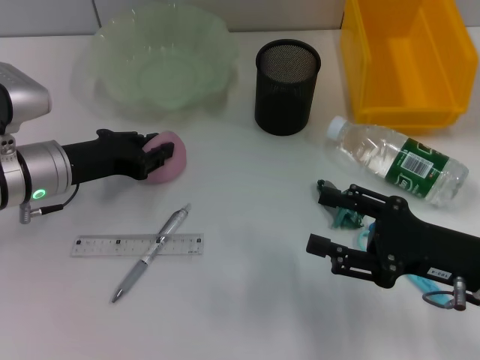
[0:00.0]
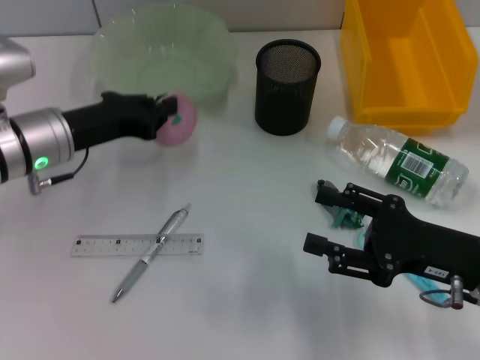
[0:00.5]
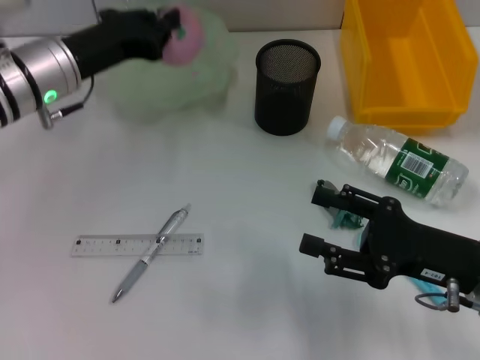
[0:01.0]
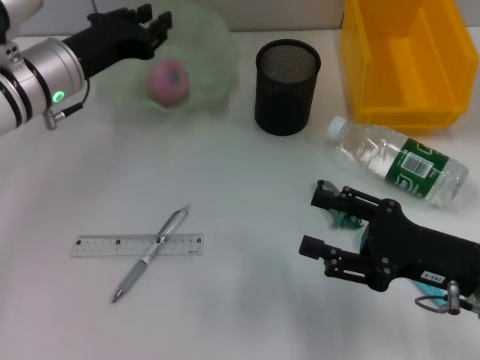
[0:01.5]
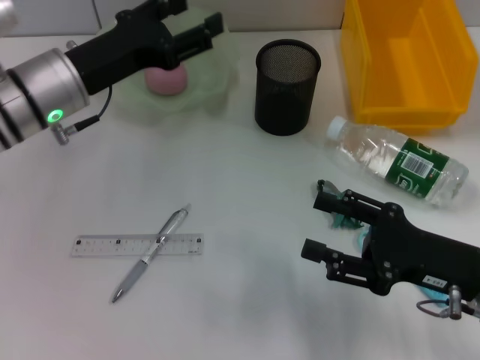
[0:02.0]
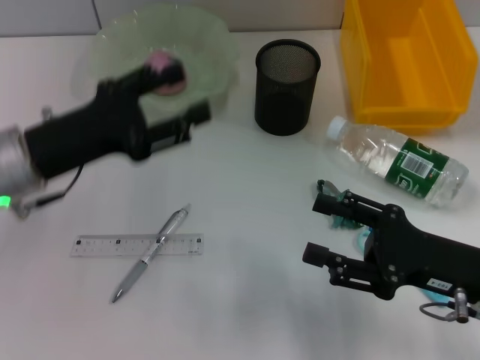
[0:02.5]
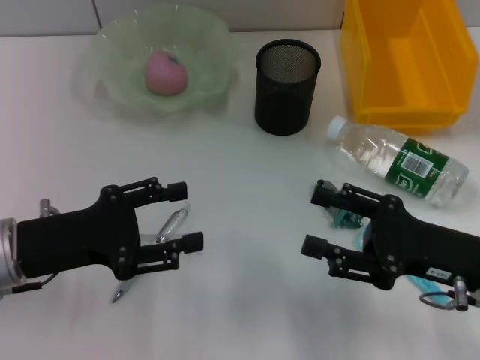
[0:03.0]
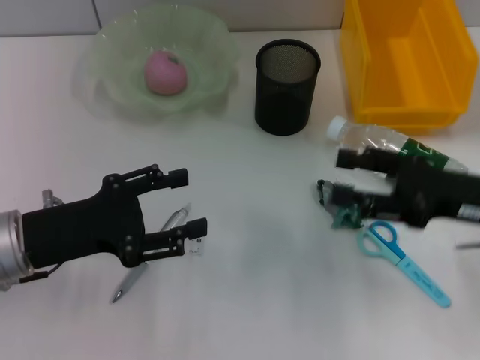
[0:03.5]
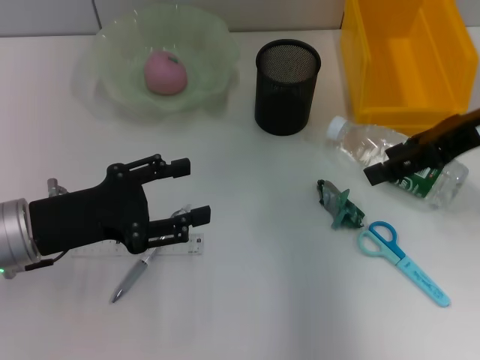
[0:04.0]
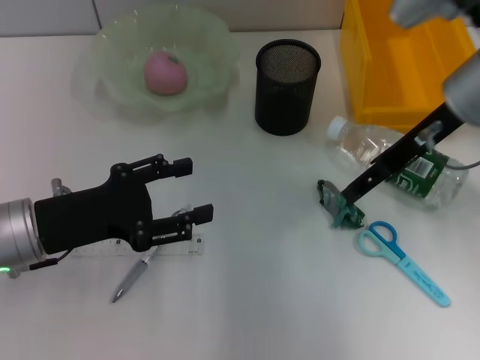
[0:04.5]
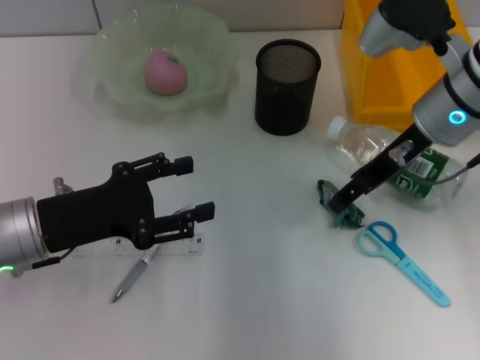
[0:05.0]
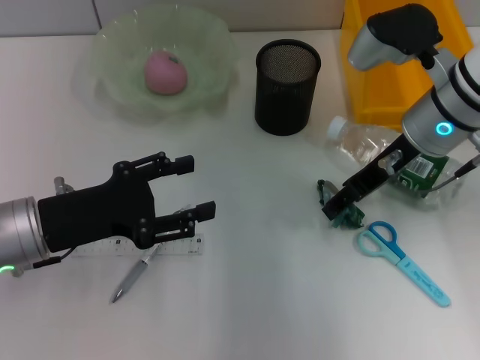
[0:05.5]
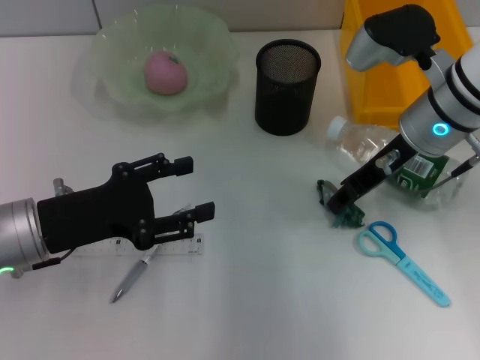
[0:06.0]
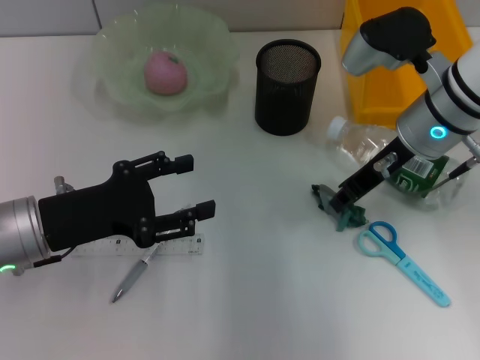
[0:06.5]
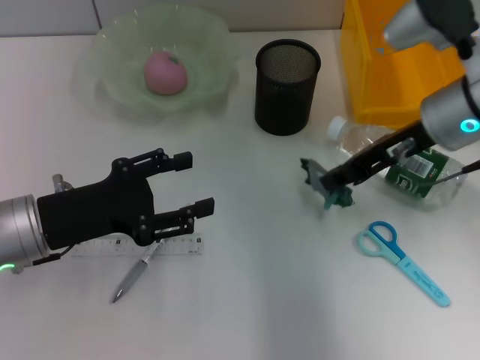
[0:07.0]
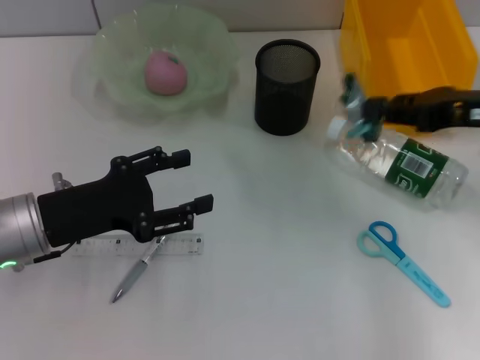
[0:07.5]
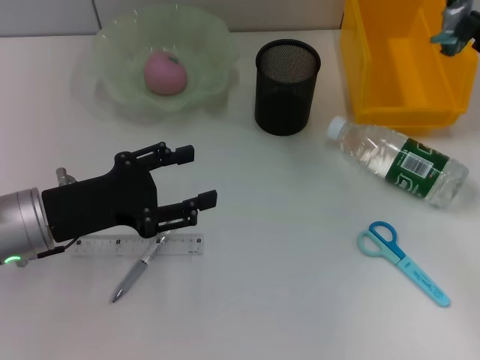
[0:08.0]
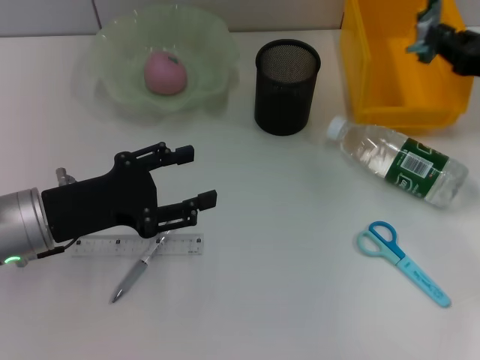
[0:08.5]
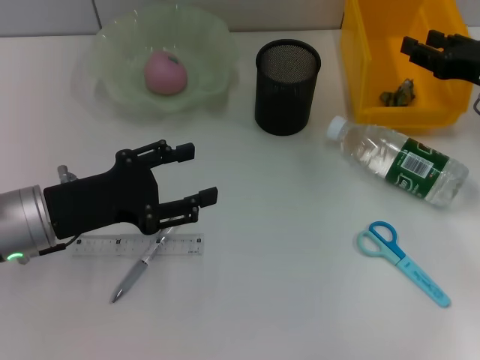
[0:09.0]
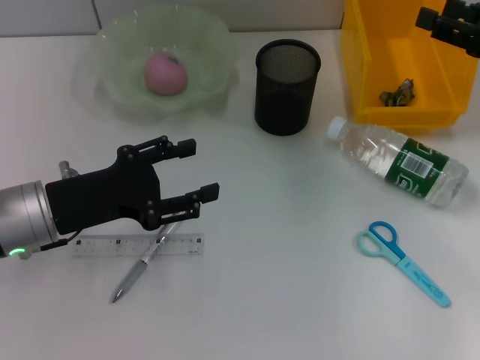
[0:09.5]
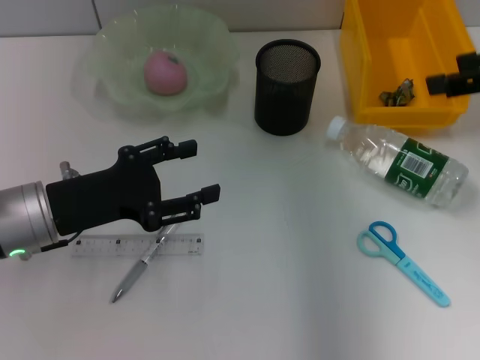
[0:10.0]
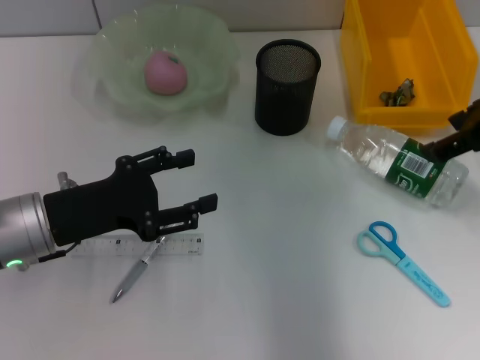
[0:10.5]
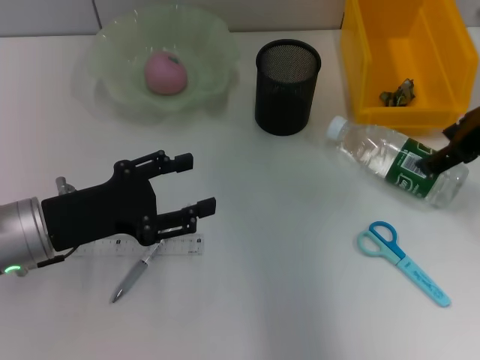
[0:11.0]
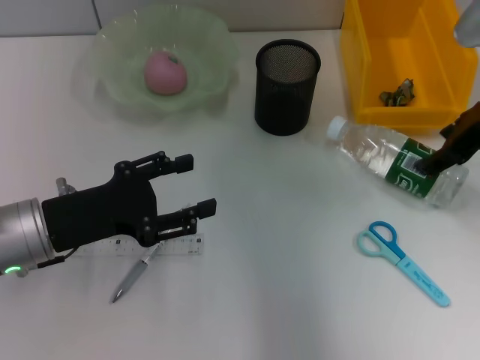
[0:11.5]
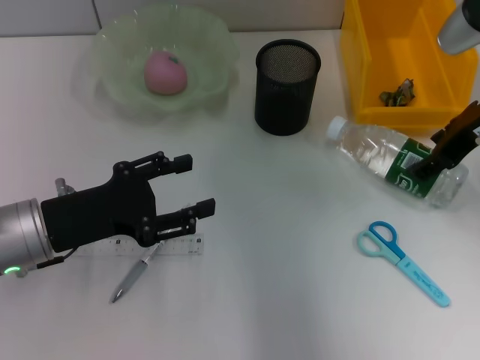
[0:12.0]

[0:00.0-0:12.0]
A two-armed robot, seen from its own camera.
Step, 0.5 to 1.5 s: Place the peach into the fruit bowl with the left hand.
Step, 2.0 to 6.5 s: Place the plastic into the trash can with the right hand.
0.0 to 2.0 s: The left gripper travels upward by approximately 5 cm, and opens up.
2.0 to 4.0 s: The left gripper goes some 10 cm backward. Meanwhile the right gripper shifts about 20 cm upward and forward.
4.0 to 6.0 s: The right gripper heads to the left and downward, covering some 10 cm, and closes.
6.0 to 8.0 s: The right gripper goes approximately 20 cm to the right and backward, and closes up.
8.0 to 10.0 s: The right gripper moves upward, some 10 cm, and opens.
10.0 to 12.0 s: The right gripper moves to the left and downward, about 10 cm.

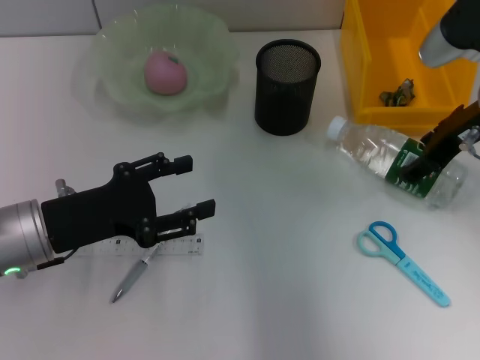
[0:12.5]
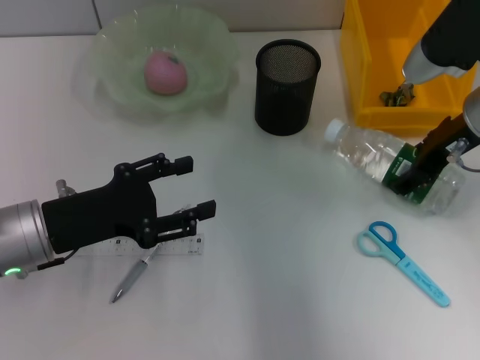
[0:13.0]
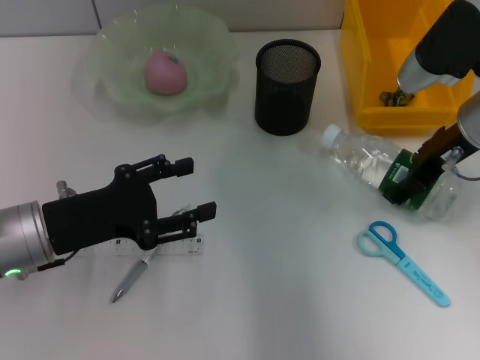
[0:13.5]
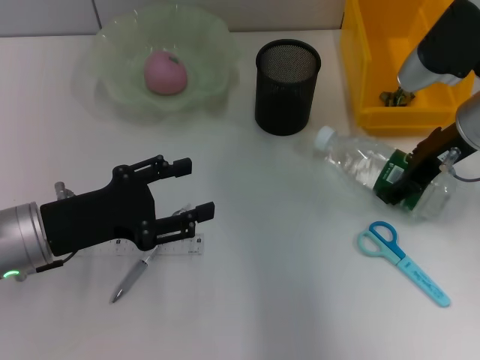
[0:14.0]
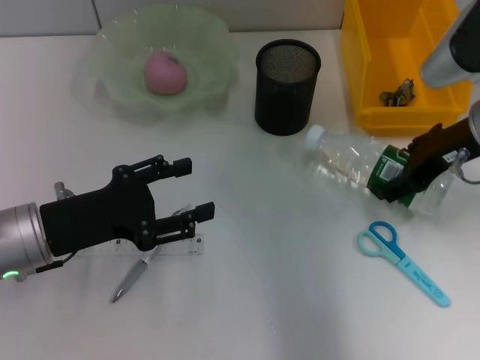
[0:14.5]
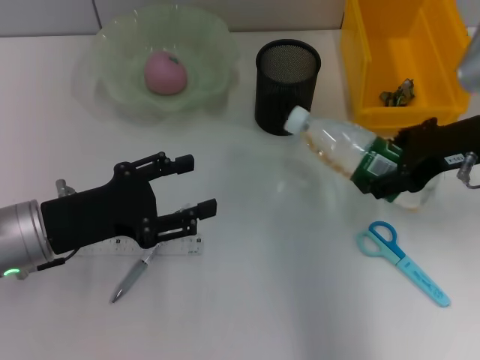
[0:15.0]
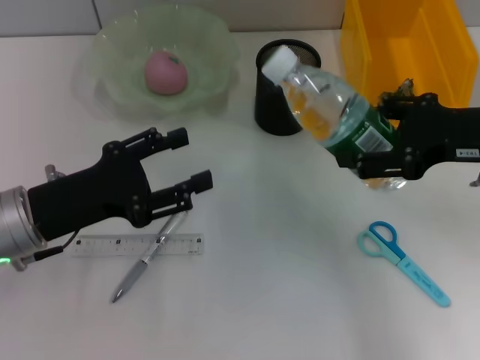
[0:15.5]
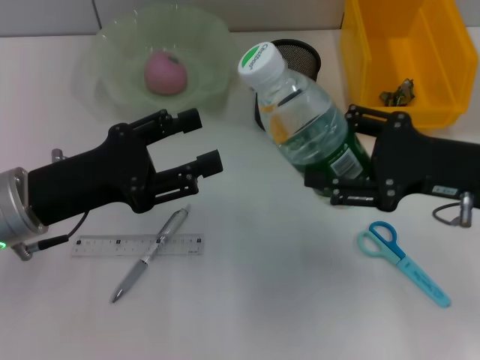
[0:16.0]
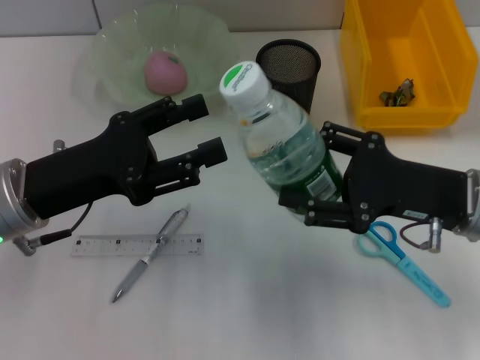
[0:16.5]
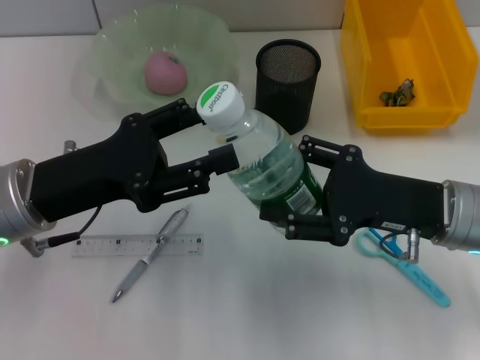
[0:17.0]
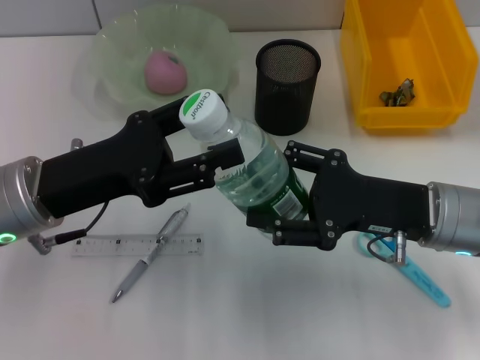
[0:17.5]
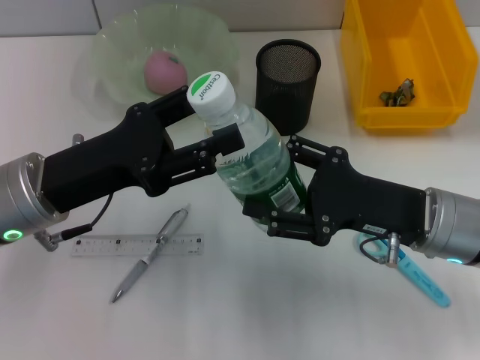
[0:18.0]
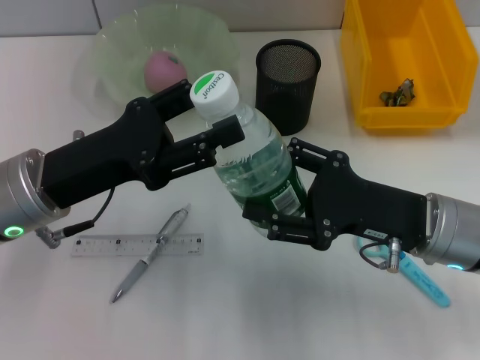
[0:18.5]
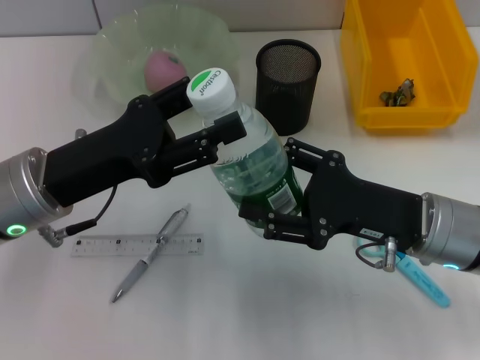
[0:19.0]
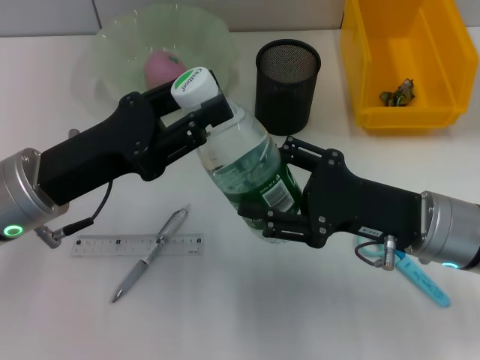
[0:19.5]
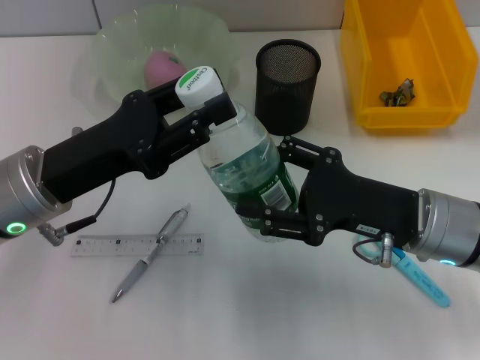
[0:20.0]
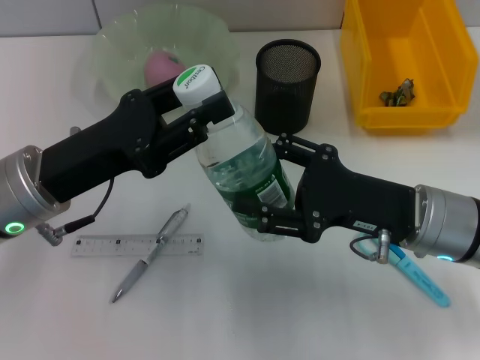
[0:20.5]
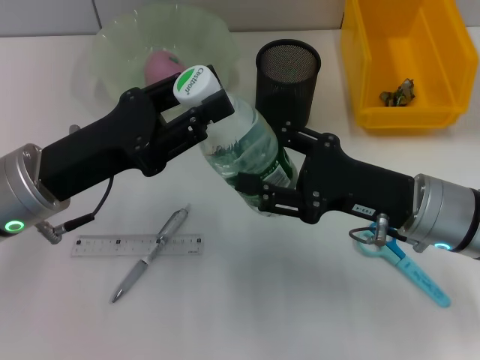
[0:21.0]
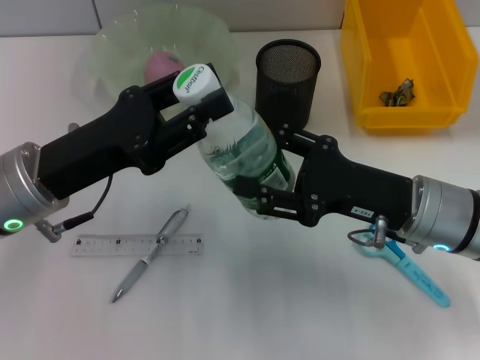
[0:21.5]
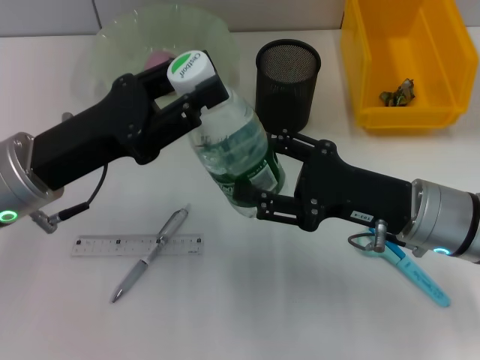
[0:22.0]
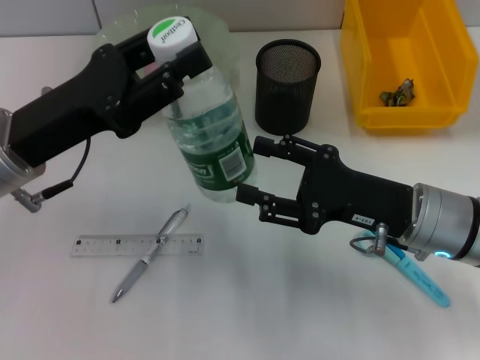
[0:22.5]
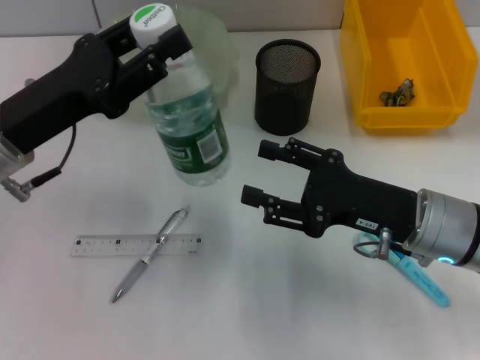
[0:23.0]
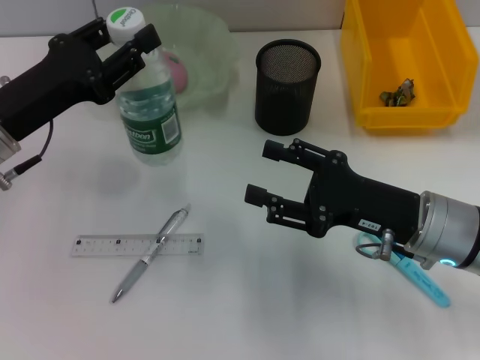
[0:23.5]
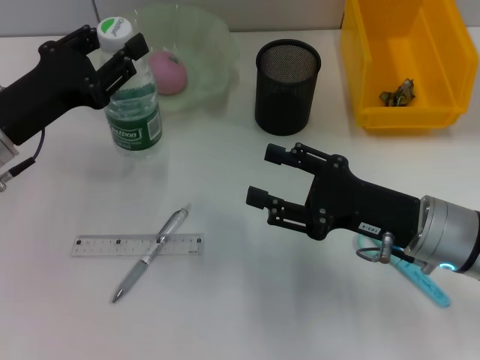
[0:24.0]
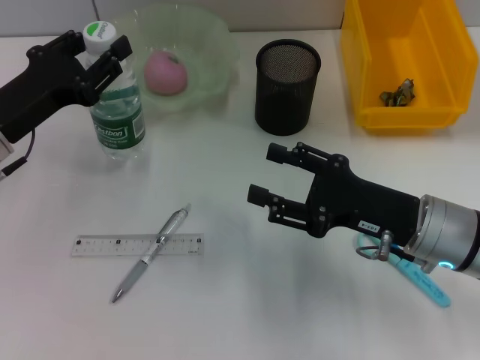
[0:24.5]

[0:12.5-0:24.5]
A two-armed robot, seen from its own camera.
Step, 14.5 to 22.5 s: Pass the water bottle from the right hand to the left hand.
12.5 to 14.5 s: There are only small adjustments of the grippers.
14.5 to 16.5 s: The right gripper shifts some 10 cm backward and downward.
18.5 to 20.5 s: Both grippers stay put.
22.5 to 24.5 s: The left gripper ends up roughly 5 cm from where it was.

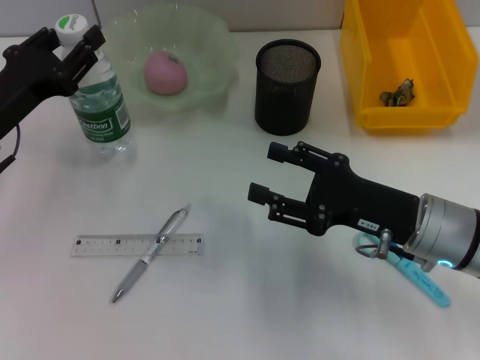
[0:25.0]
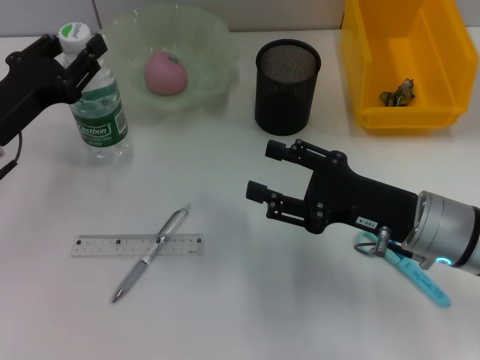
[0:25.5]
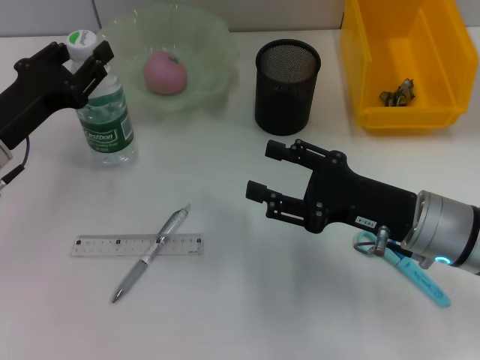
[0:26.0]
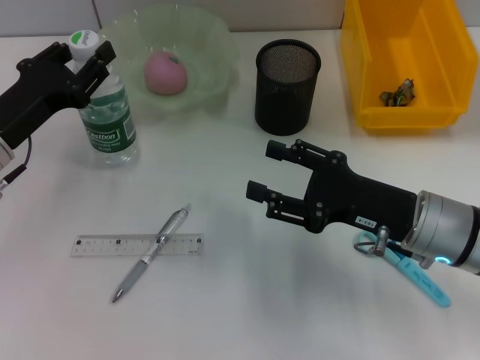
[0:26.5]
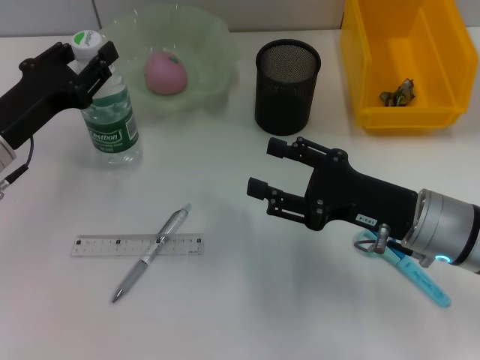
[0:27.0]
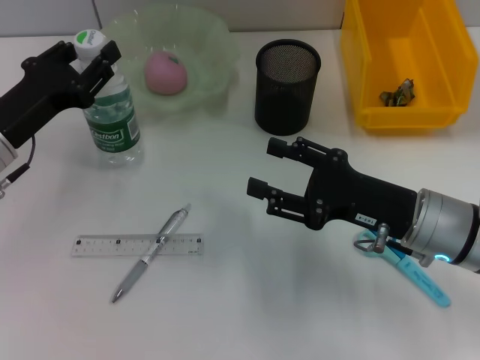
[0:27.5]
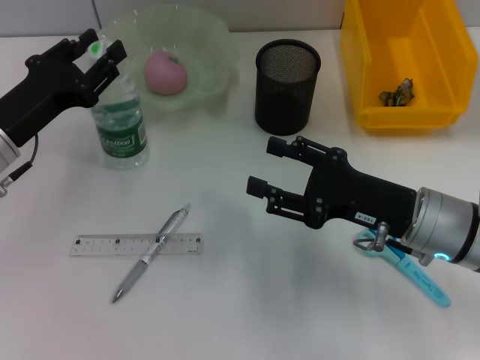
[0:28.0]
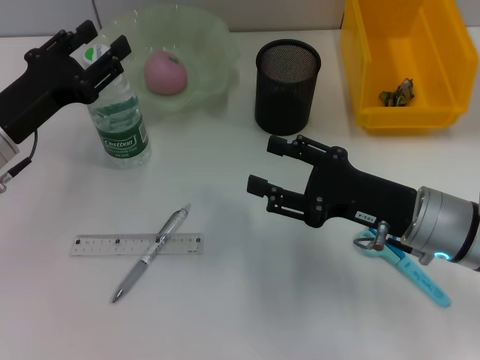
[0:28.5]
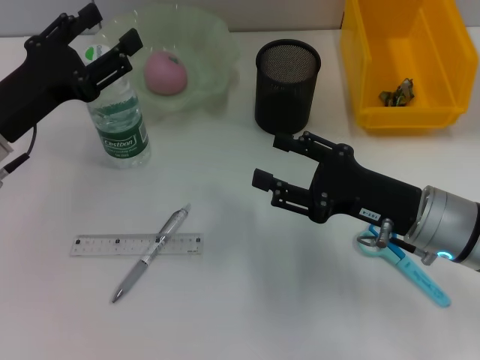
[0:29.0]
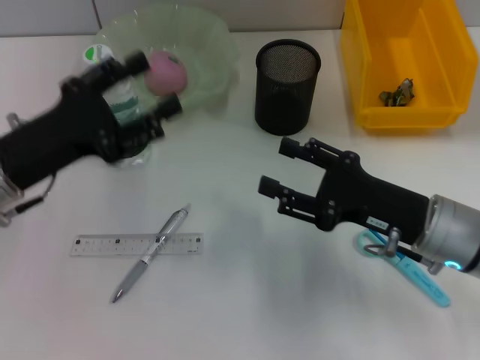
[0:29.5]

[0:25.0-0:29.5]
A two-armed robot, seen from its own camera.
Step, 25.0 to 28.5 s: Place the water bottle on the table with the left hand.
25.0 to 27.0 s: Both grippers stay put.
27.0 to 29.5 s: The left gripper opens.
